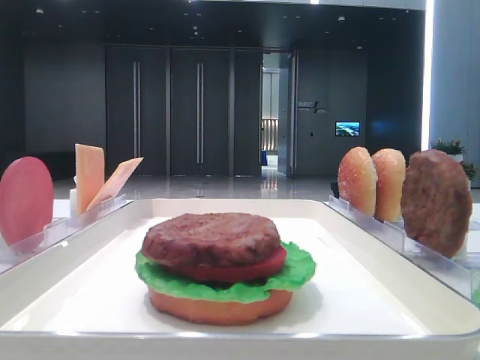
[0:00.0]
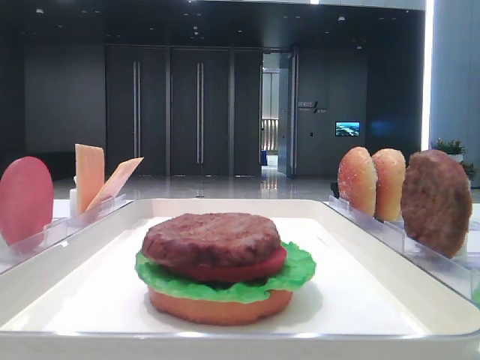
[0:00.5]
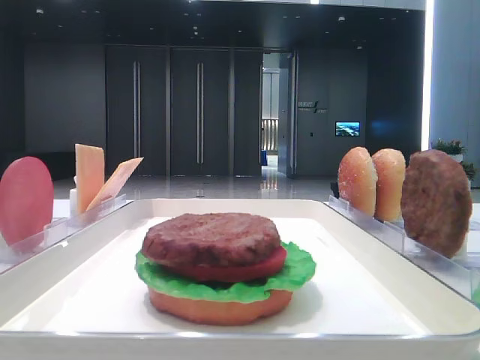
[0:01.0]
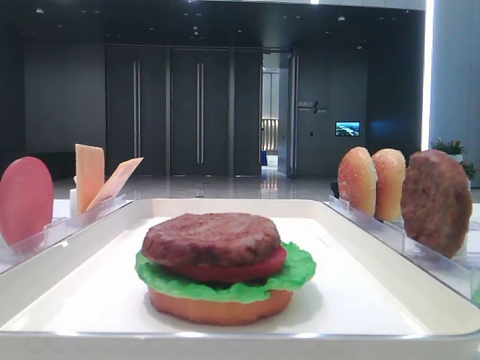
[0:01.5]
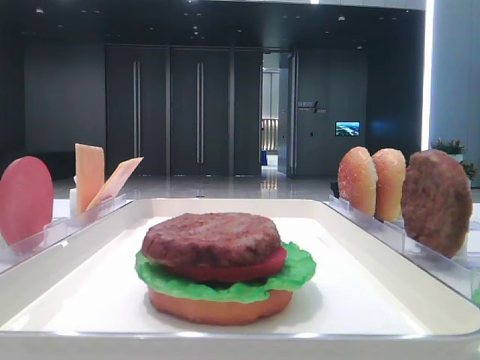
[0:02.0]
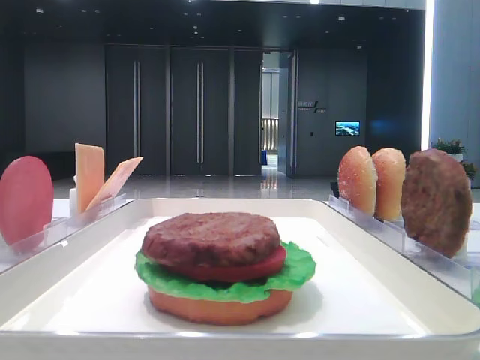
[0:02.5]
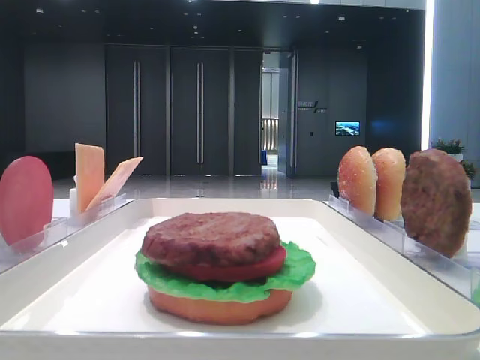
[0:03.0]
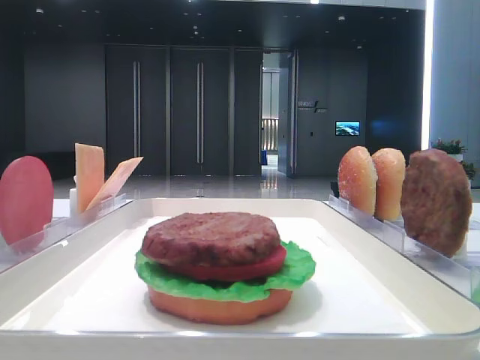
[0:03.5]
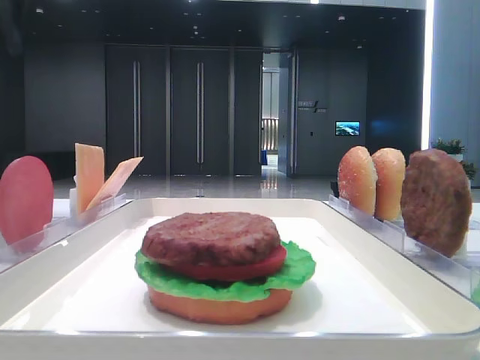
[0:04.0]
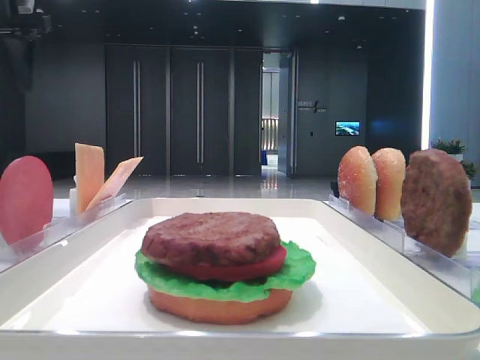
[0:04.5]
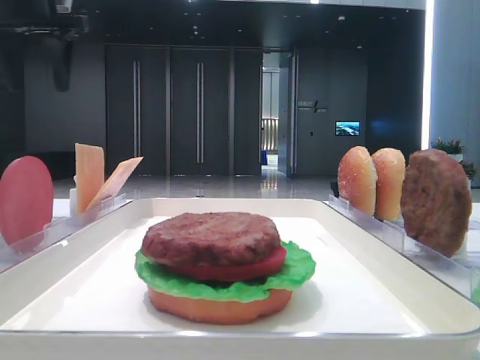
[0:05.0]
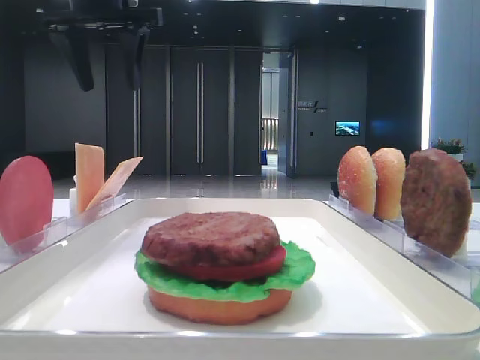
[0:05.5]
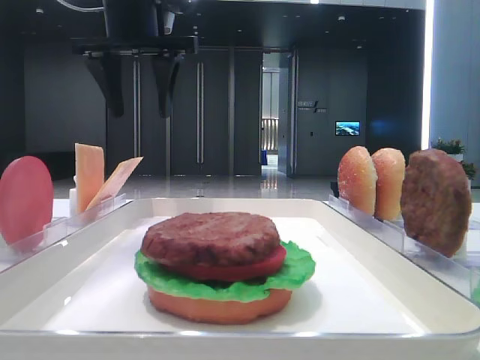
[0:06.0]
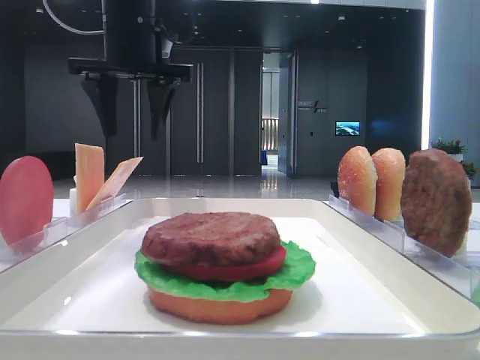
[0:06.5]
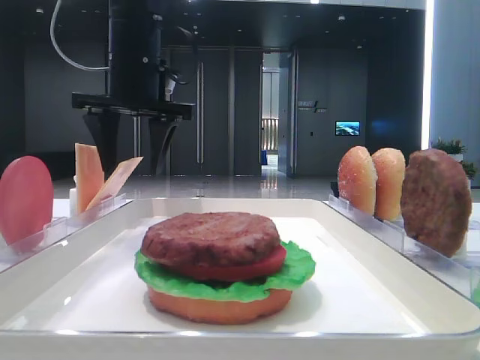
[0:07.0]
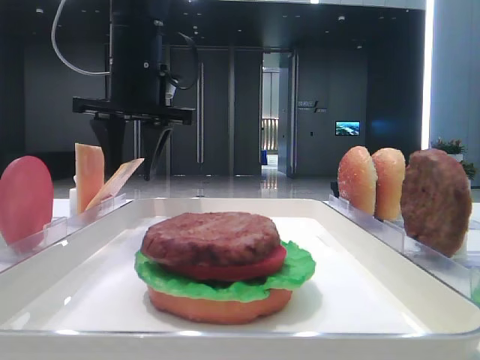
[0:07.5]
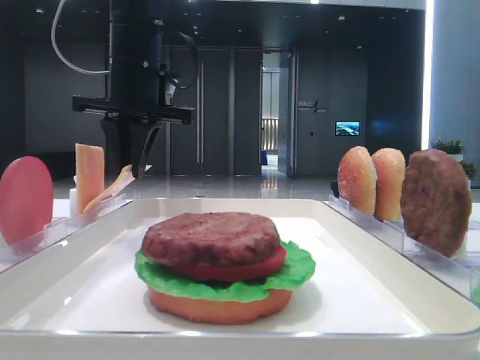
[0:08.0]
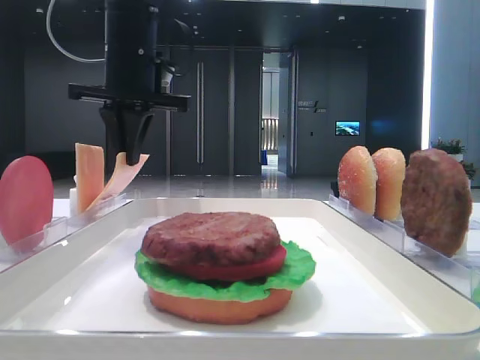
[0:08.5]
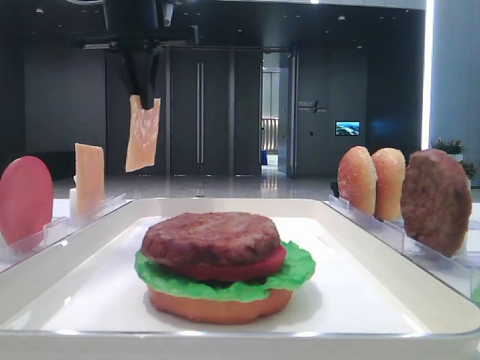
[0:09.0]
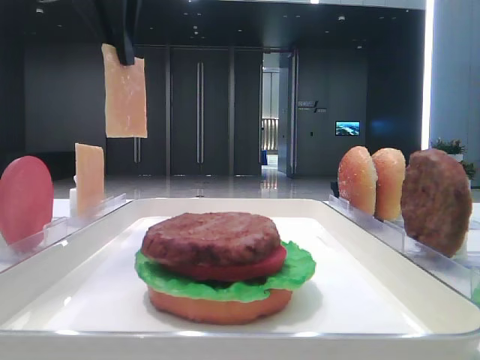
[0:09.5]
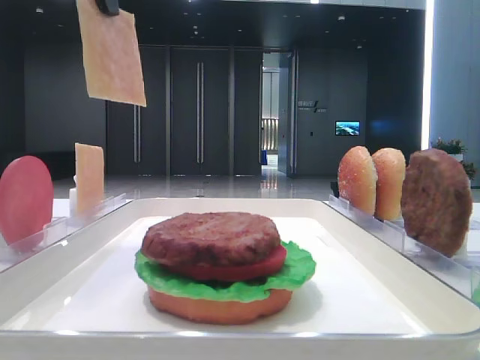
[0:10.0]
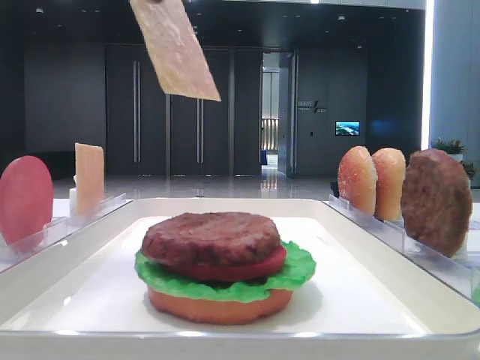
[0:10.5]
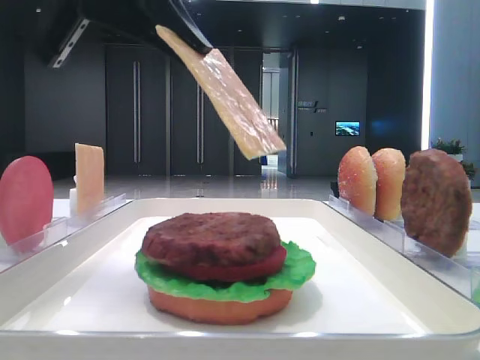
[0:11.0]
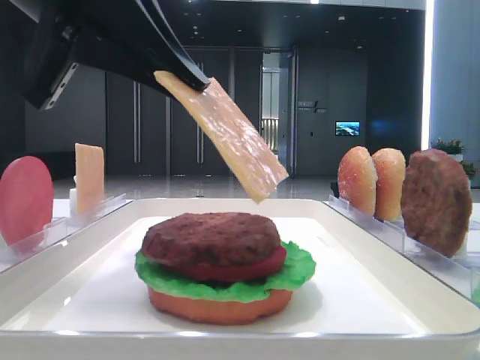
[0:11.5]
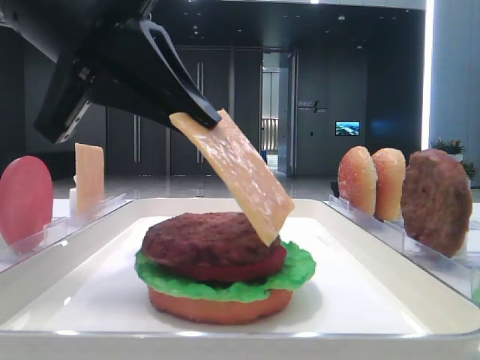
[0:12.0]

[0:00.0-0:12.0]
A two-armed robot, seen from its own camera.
Step, 0:00.0 to 0:08.0: Pick up the cheese slice with the left hand.
0:04.0 to 0:06.0: The left gripper moves to the right, some 20 cm.
0:06.0 to 0:08.0: The left gripper heads downward, covering approximately 5 cm, and closes.
0:08.0 to 0:10.0: The left gripper moves upward and backward, roughly 20 cm.
0:10.0 to 0:12.0: The left gripper travels downward and backward by roughly 15 cm.

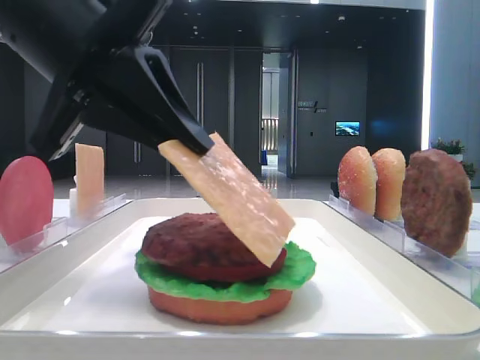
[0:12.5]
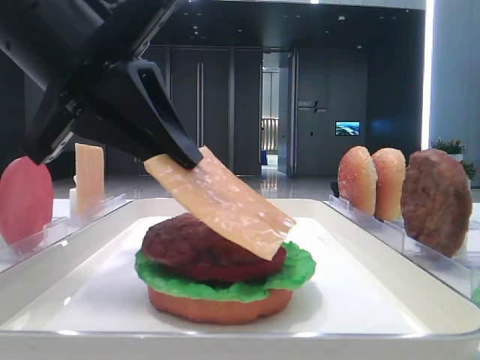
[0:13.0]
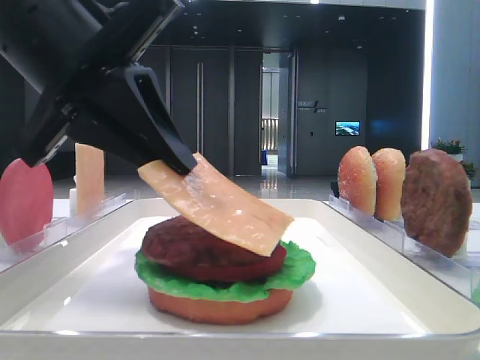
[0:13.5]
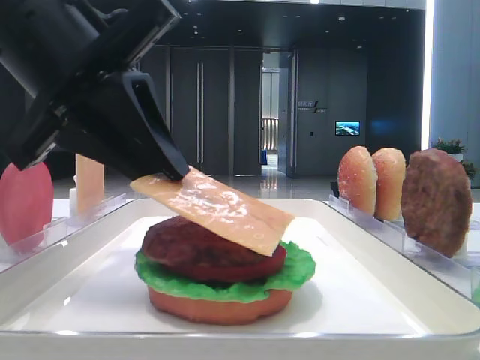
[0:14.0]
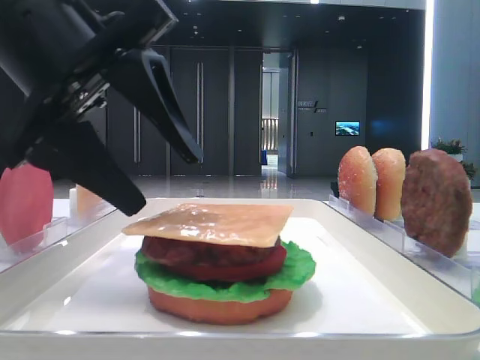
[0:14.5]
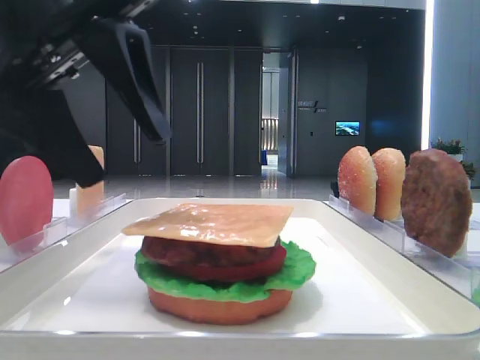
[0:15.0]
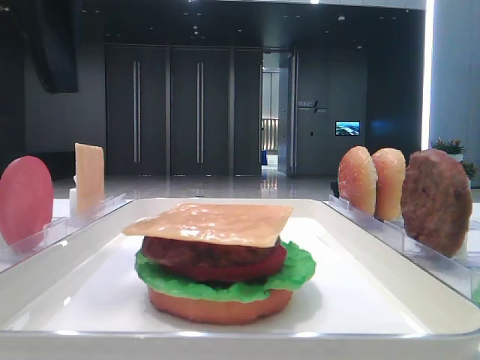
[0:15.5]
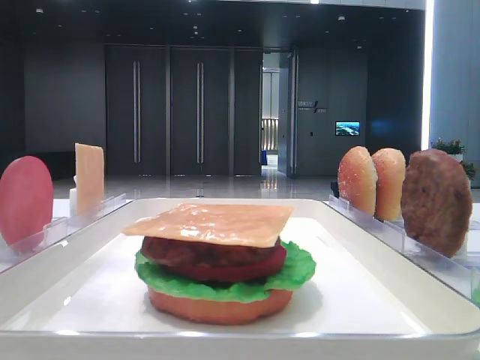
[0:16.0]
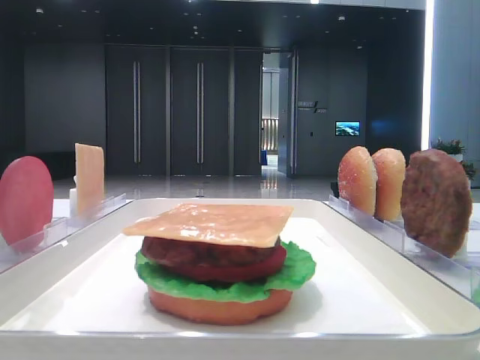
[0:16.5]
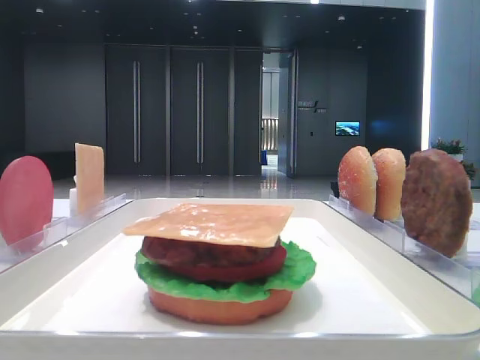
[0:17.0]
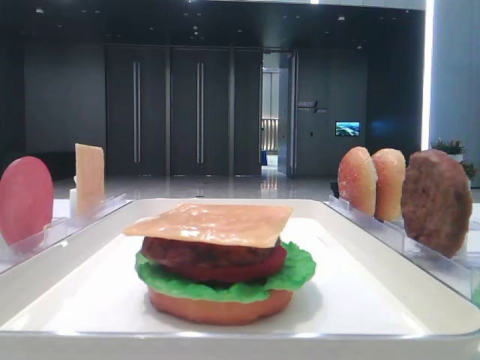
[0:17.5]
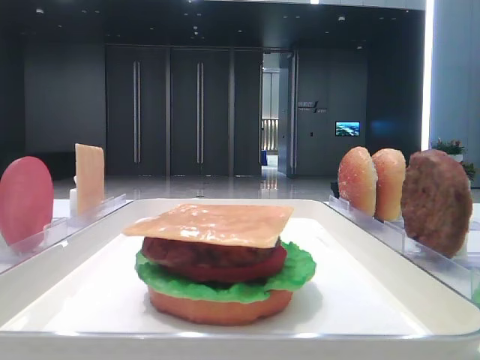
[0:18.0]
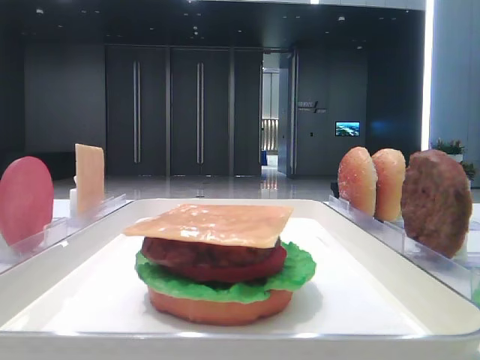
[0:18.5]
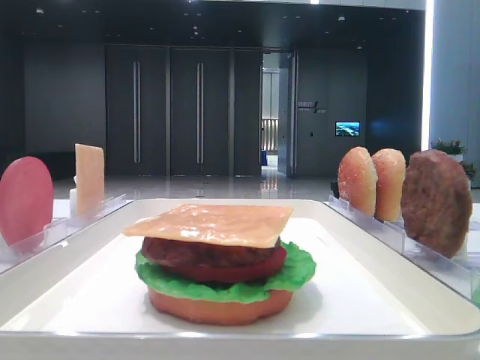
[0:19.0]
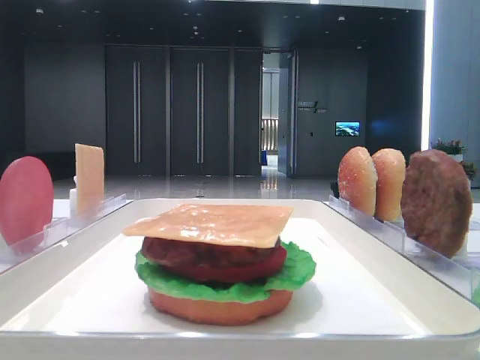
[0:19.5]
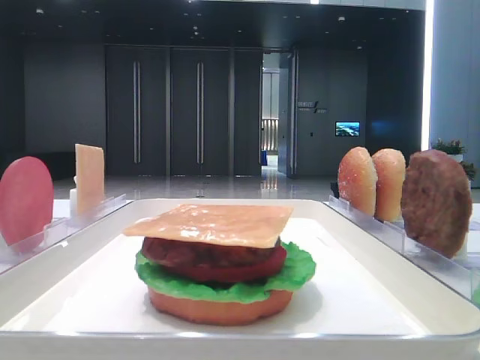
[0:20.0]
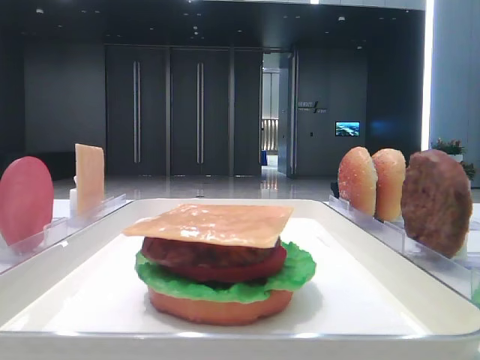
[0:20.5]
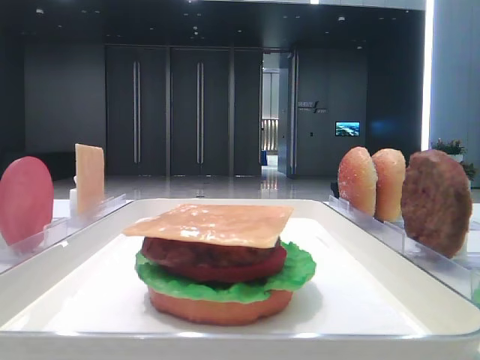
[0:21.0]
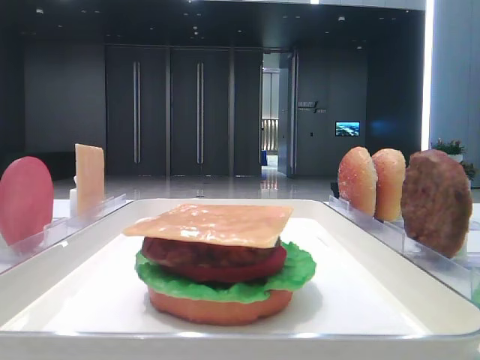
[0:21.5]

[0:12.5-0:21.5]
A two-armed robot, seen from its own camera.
0:12.5 to 0:14.5: The left gripper opens.
0:14.5 to 0:17.0: The left gripper goes roughly 25 cm to the left and upward.

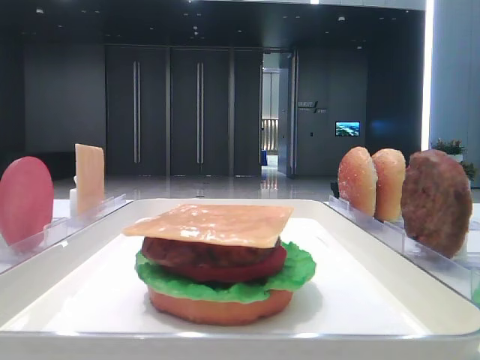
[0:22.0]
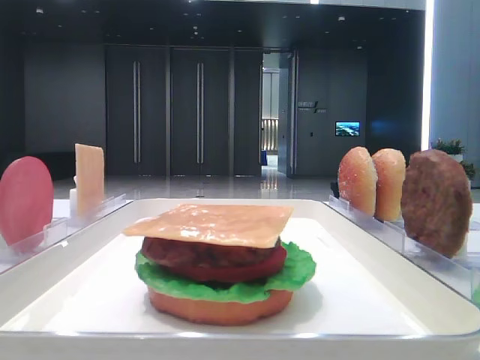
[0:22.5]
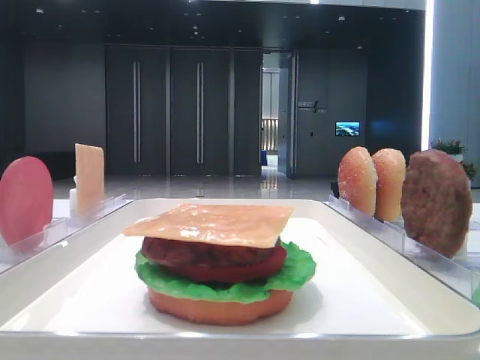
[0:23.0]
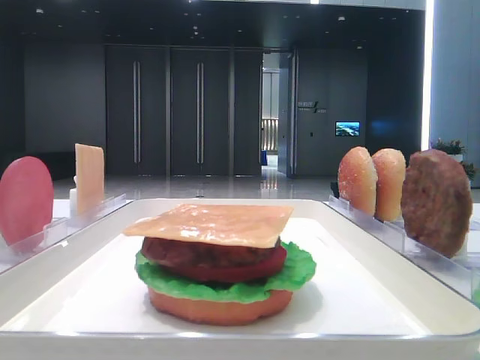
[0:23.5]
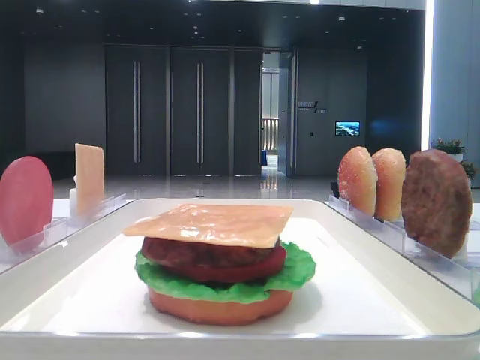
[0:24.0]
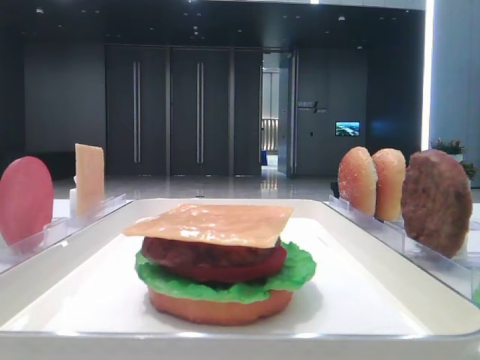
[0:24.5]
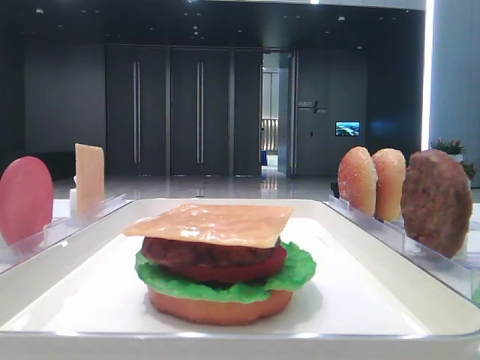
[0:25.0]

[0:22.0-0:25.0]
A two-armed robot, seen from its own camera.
0:22.0 to 0:25.0: Both grippers stay about where they are.

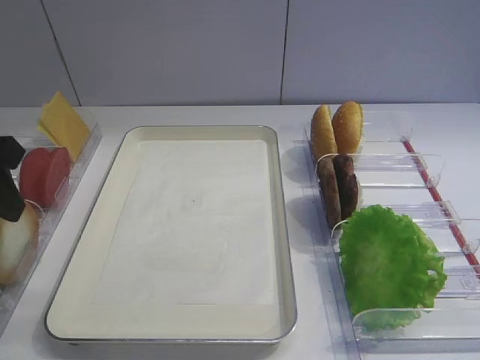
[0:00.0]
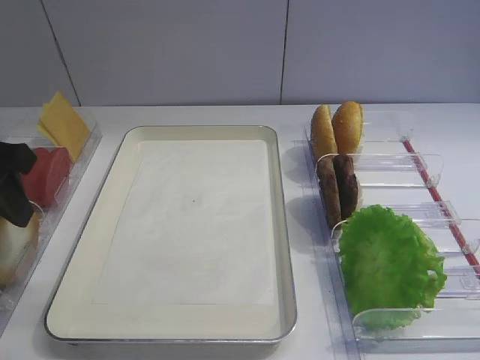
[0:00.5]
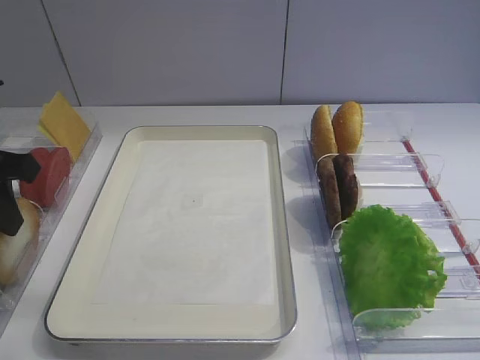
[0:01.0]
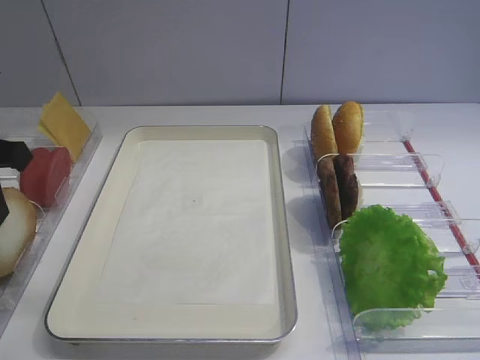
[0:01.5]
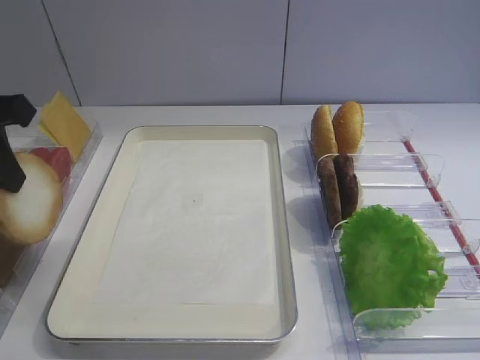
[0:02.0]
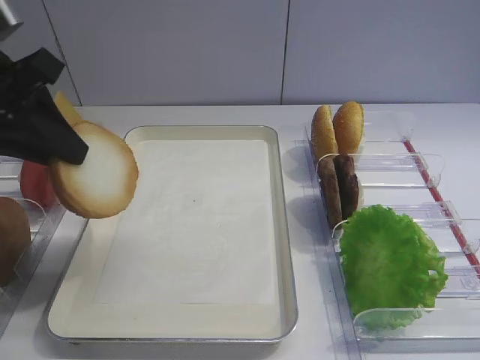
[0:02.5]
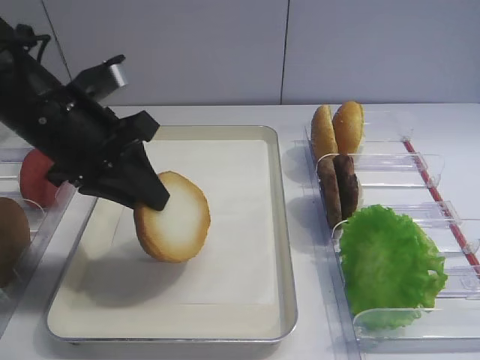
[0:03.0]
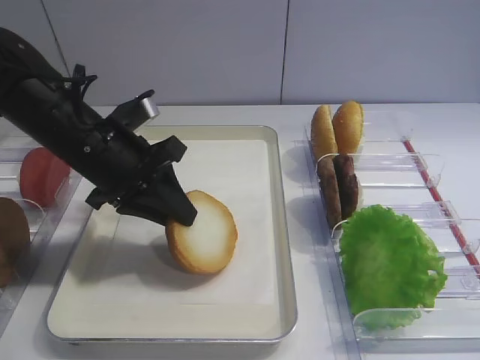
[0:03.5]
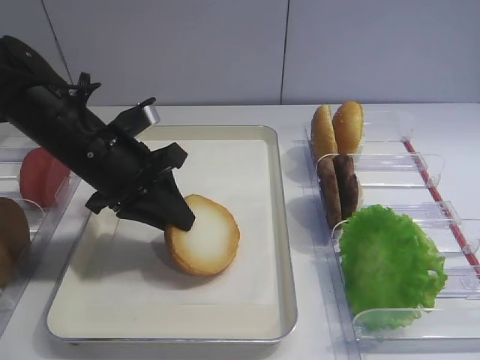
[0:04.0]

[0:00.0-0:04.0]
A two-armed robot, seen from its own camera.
Step, 0:00.0 to 0:02.0: Pick up the bread slice with the left gripper.
0:00.0 to 0:02.0: The left gripper closes.
0:02.0 to 0:04.0: The left gripper shifts about 15 cm to the right, downward and forward.
